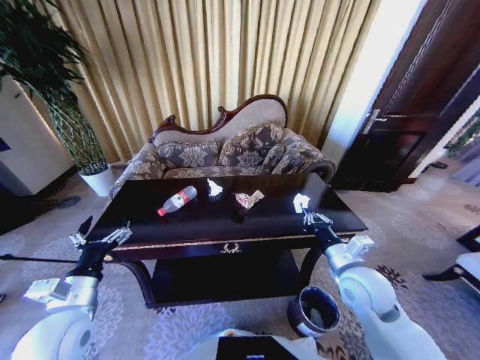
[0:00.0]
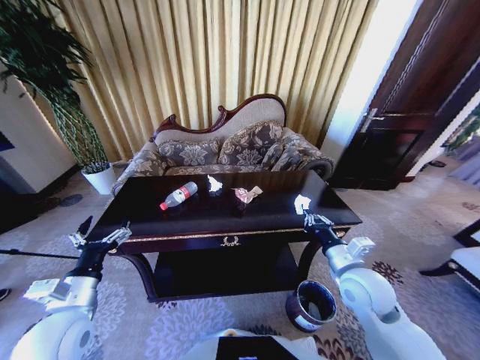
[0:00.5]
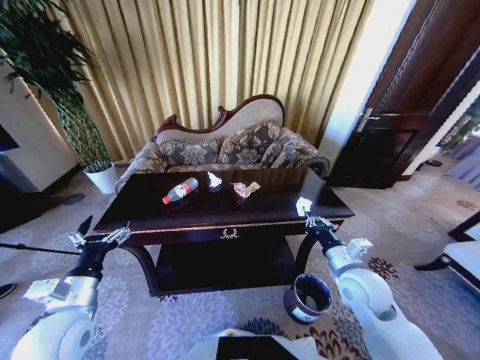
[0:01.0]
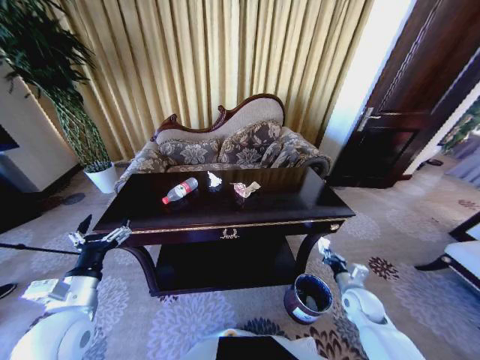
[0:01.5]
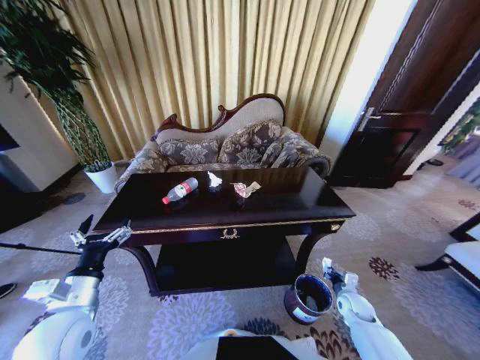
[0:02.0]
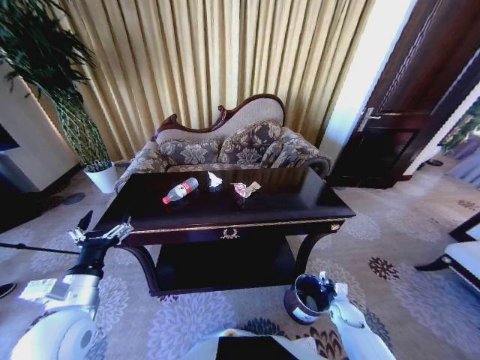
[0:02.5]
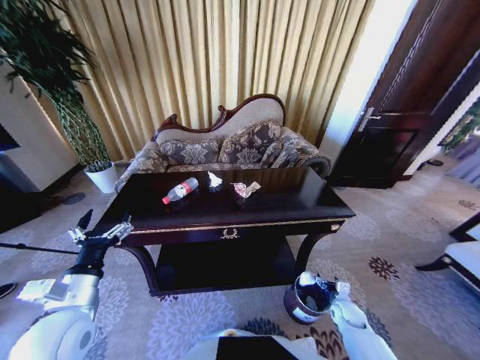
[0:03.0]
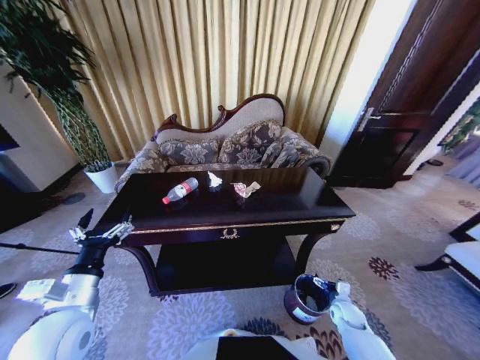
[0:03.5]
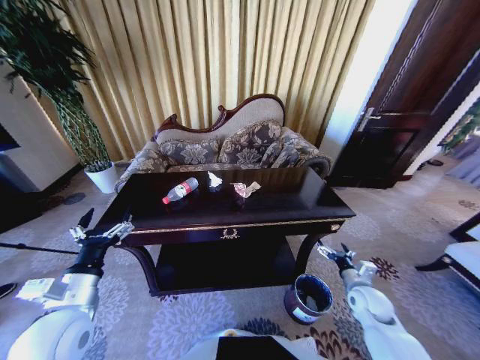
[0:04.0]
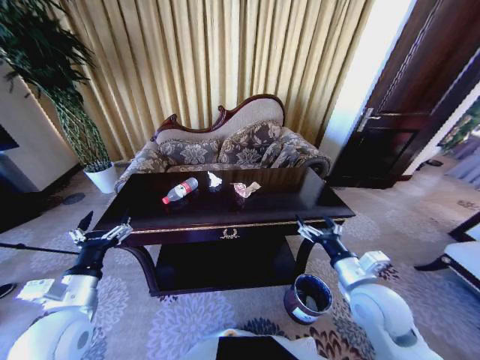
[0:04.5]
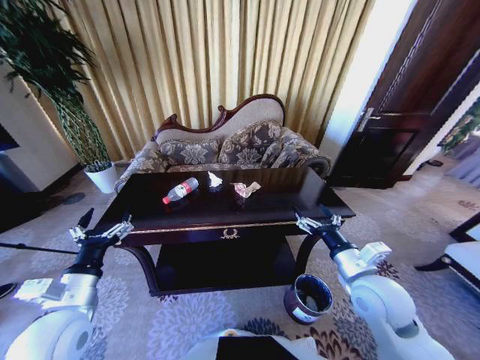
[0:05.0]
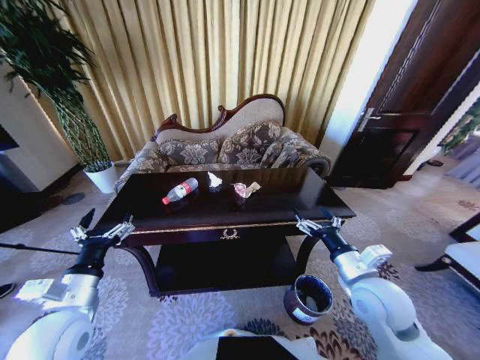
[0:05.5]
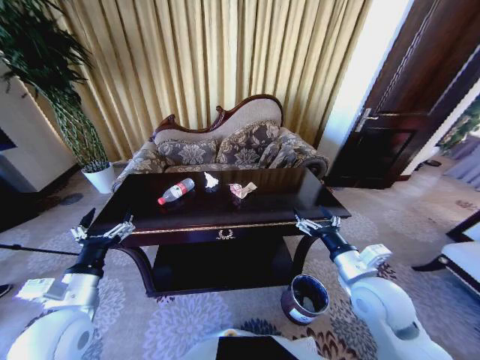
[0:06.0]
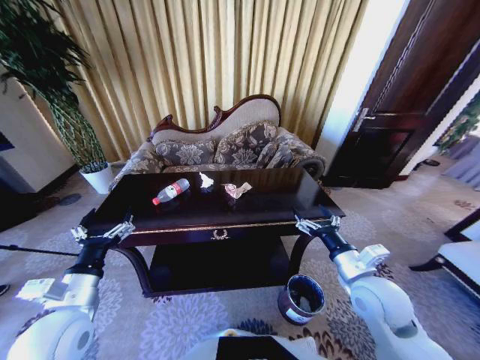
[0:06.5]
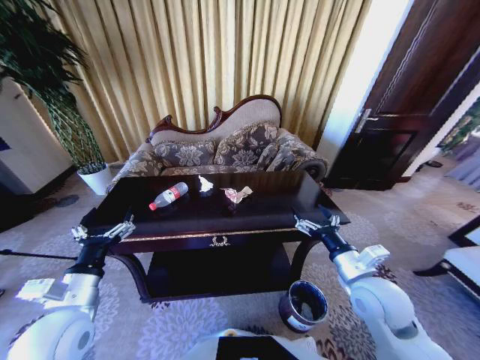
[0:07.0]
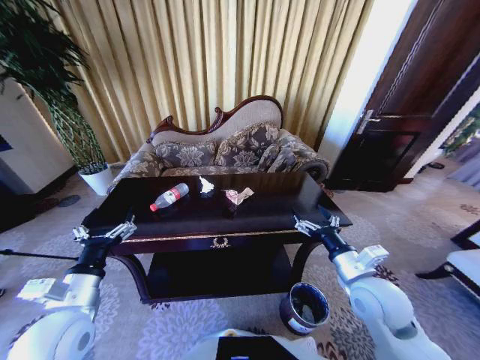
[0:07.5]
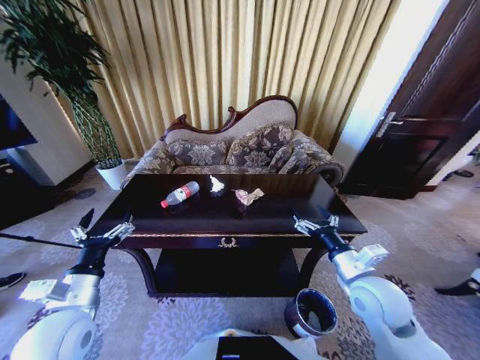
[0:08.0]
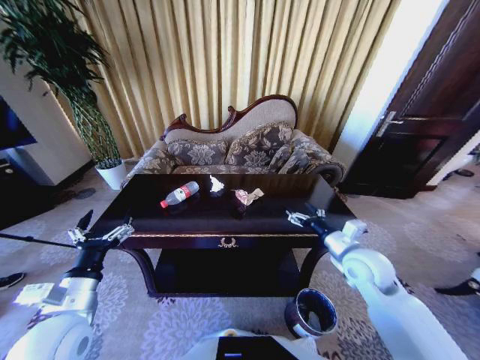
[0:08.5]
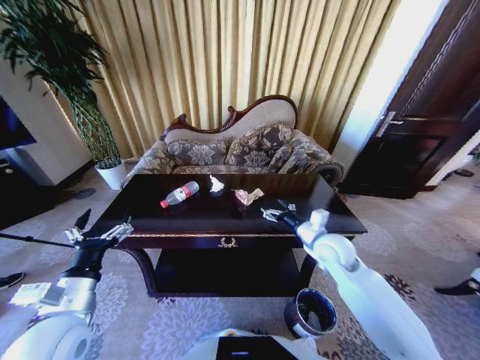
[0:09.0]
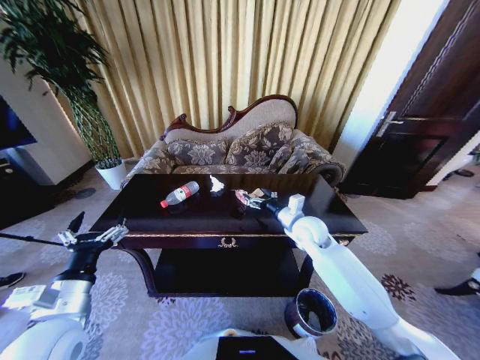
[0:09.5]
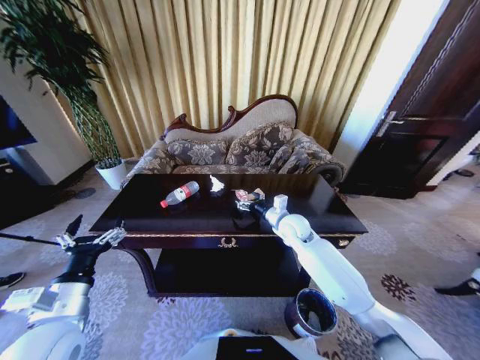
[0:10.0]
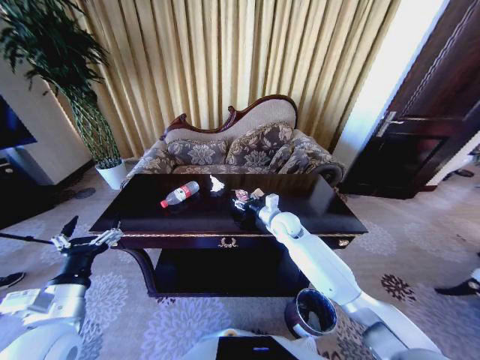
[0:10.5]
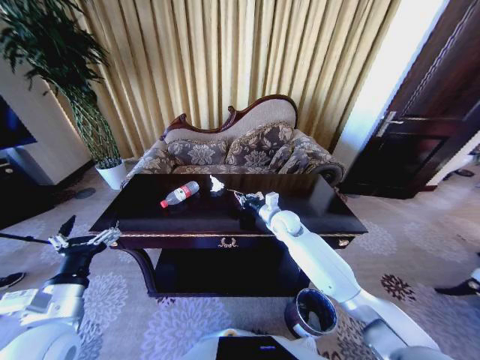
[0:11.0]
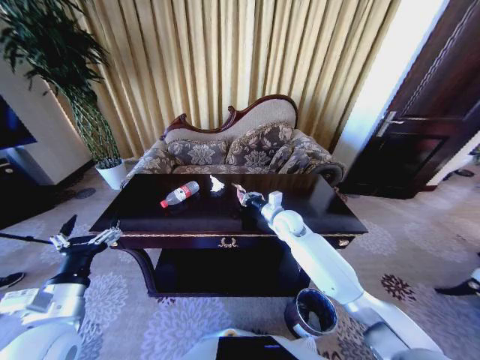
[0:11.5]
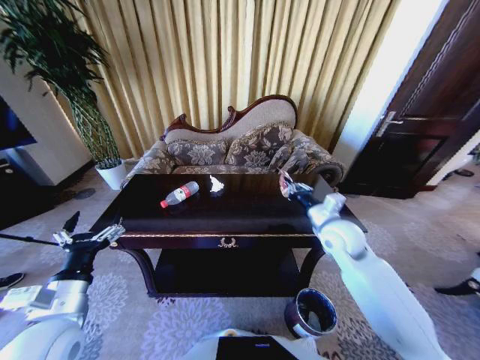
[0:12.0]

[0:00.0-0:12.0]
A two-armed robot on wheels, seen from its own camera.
Task of the whole recording: Move to the front of the table and place the trash on the table into the trash bin.
0.0 to 2.0 s: The right gripper heads downward and to the right, covering approximately 30 cm.
2.0 to 4.0 s: The right gripper goes some 10 cm upward, and opens up.
4.0 to 6.0 s: The right gripper shifts some 20 cm upward and to the left.
8.0 to 10.0 s: The right gripper goes approximately 25 cm forward and to the left.
10.0 to 12.0 s: The right gripper shifts about 15 cm to the right, backward and upward, and closes up.

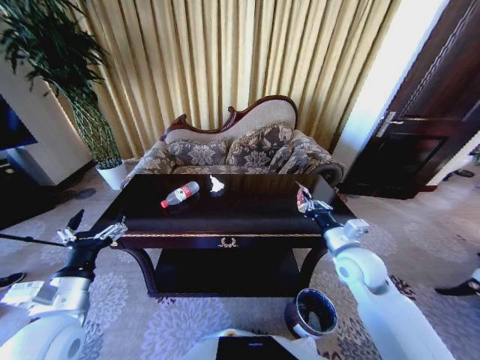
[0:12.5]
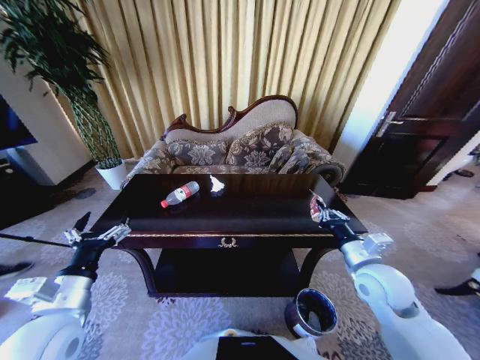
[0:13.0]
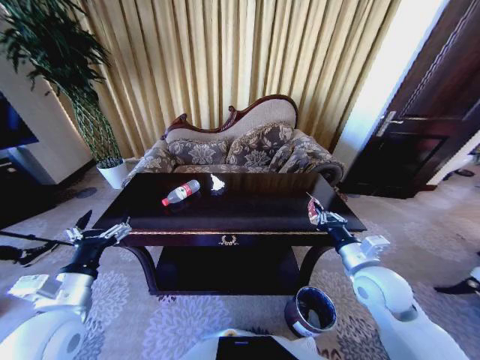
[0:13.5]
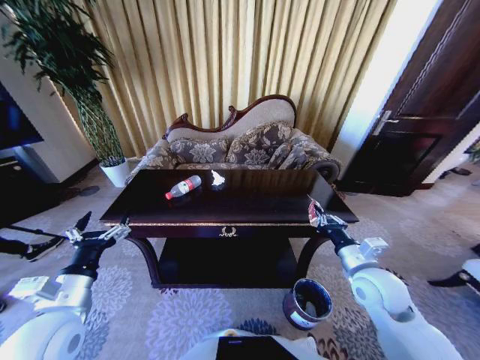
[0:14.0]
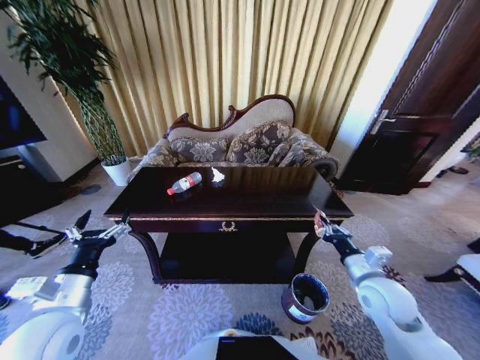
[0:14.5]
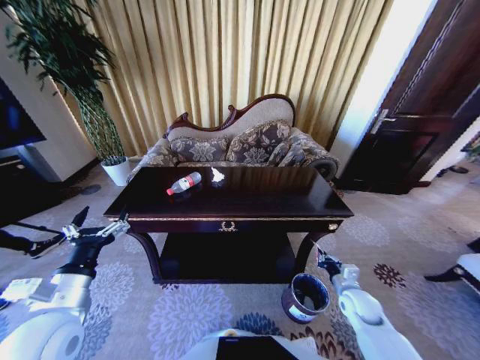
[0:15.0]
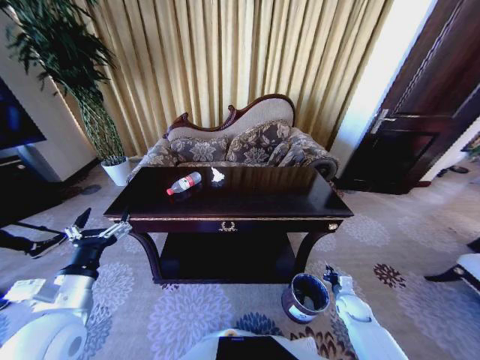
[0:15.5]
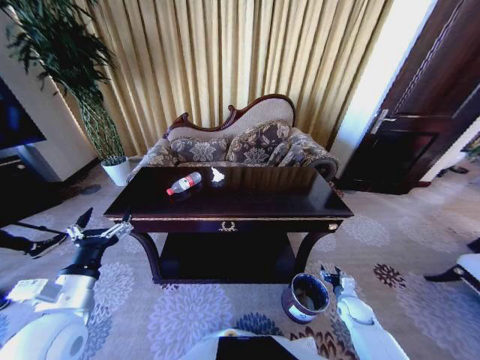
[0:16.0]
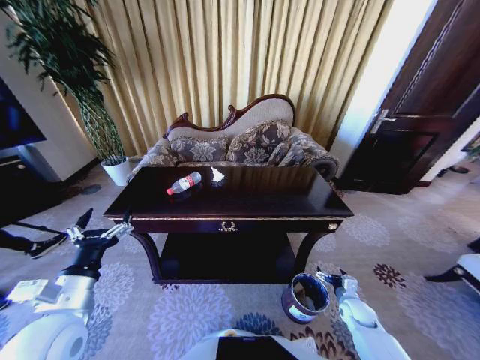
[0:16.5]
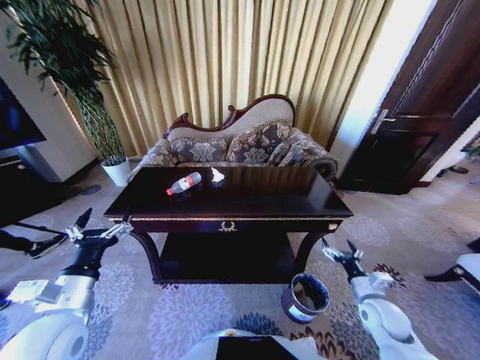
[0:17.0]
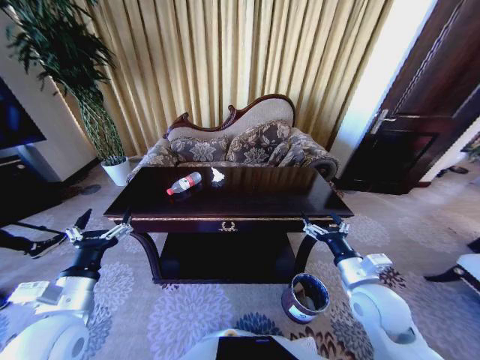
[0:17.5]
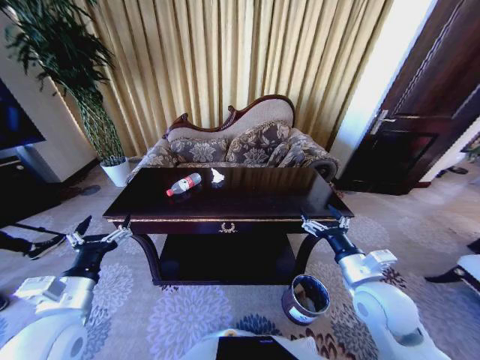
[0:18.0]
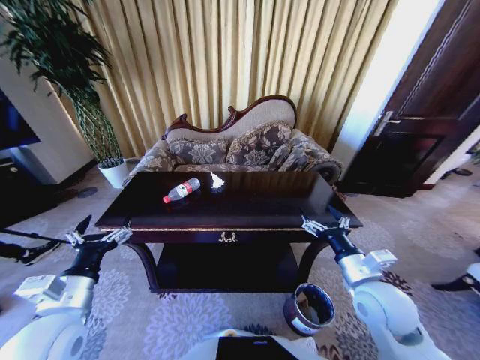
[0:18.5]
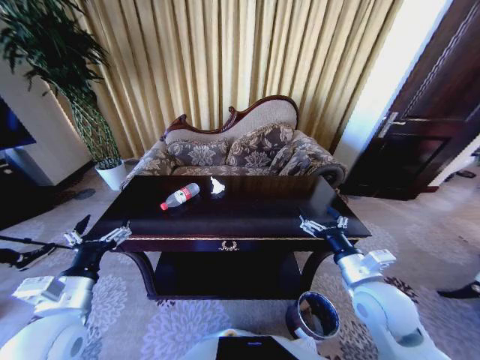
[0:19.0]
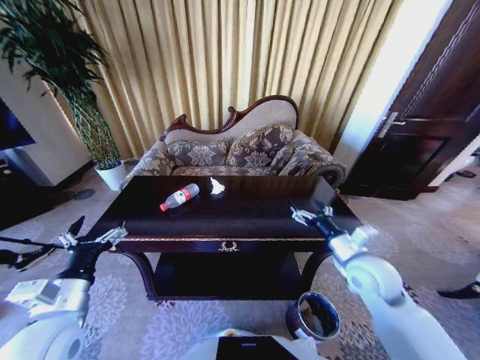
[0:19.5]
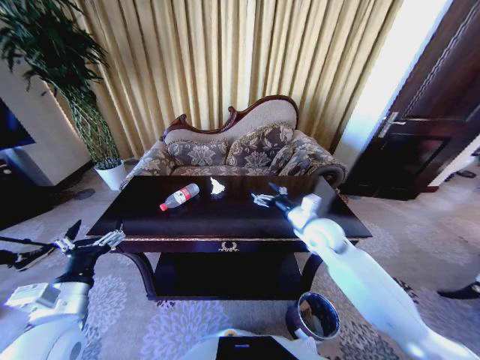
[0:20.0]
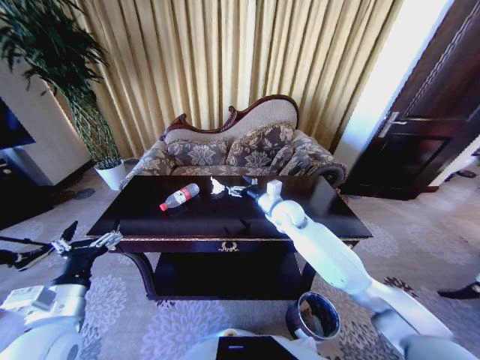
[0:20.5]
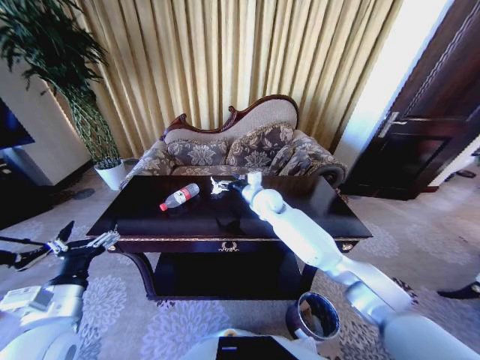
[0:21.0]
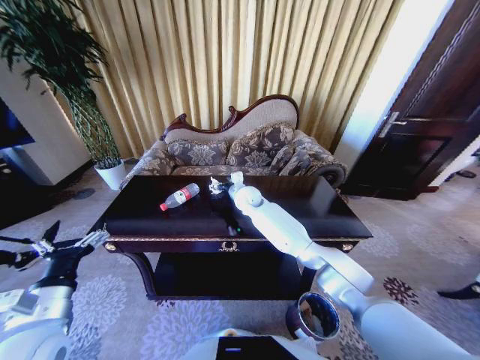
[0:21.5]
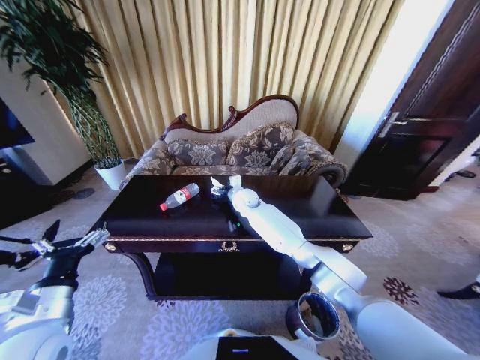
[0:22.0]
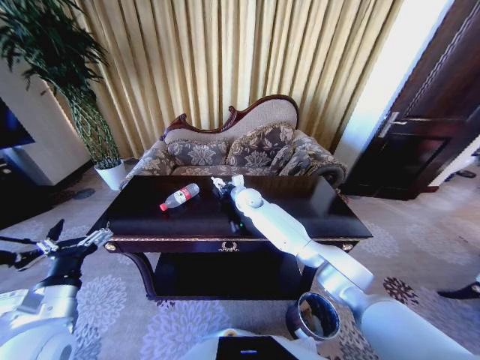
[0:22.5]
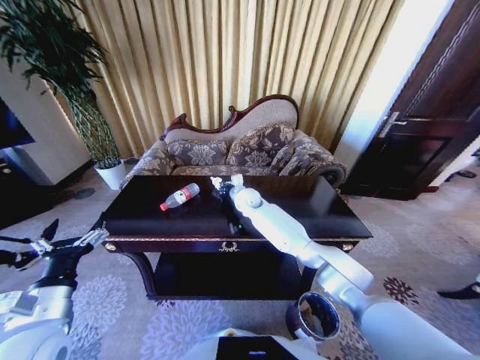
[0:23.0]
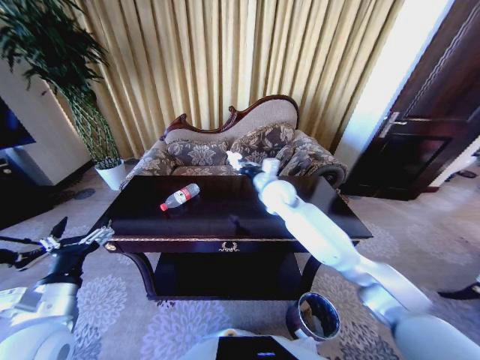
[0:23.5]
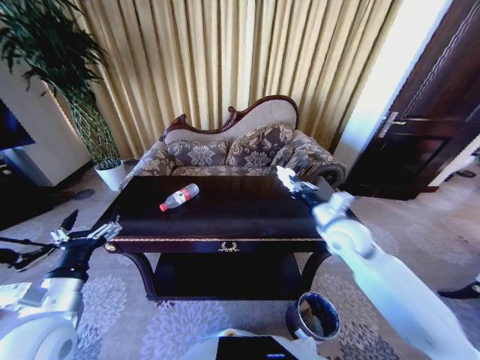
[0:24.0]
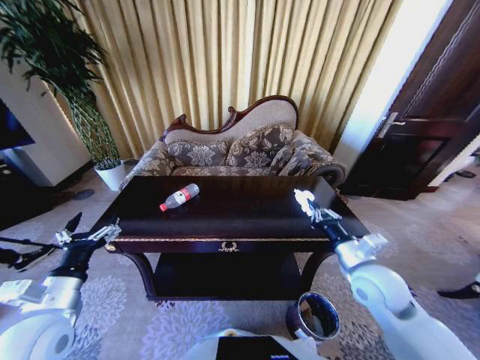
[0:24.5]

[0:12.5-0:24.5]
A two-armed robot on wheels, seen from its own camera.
Task of the whole recording: Move to the front of the table and place the trash on the table into the trash bin.
12.5 to 14.5 s: The right gripper travels backward by some 5 cm.
14.5 to 16.5 s: The right gripper moves downward, about 25 cm, and opens up.
16.5 to 18.5 s: The right gripper goes roughly 30 cm upward and to the left.
18.5 to 20.5 s: The right gripper goes about 30 cm forward and to the left.
20.5 to 22.5 s: The right gripper shifts roughly 15 cm forward and to the left, and closes up.
22.5 to 24.5 s: The right gripper travels backward and to the right by roughly 40 cm, and closes up.

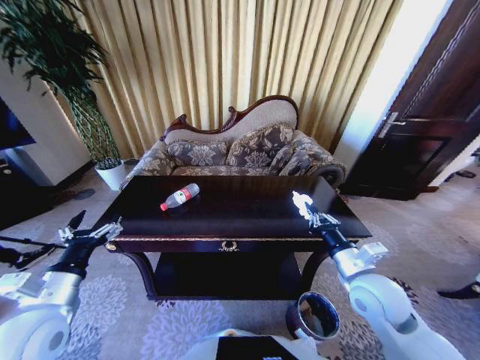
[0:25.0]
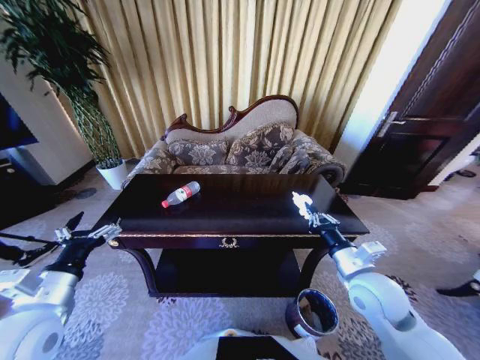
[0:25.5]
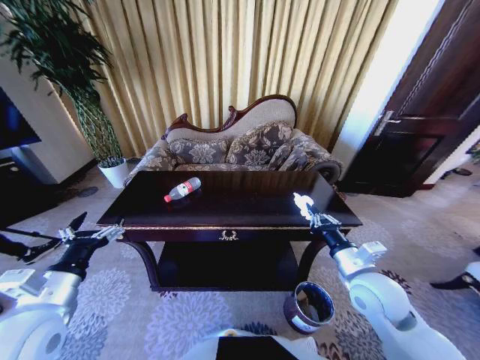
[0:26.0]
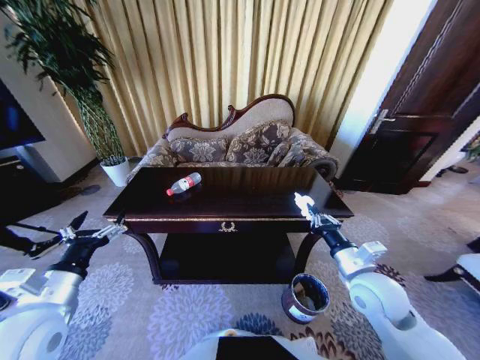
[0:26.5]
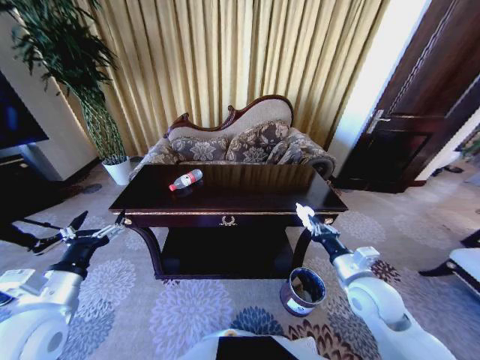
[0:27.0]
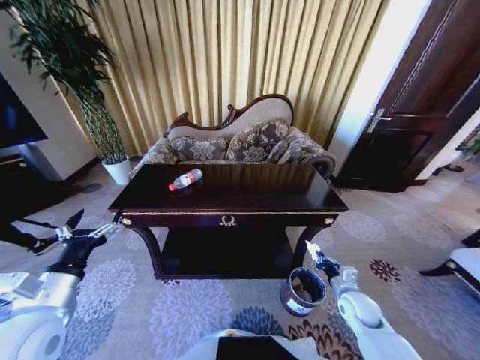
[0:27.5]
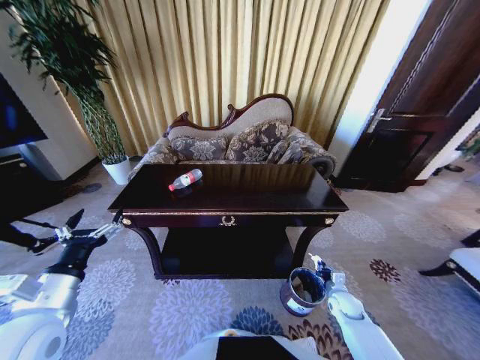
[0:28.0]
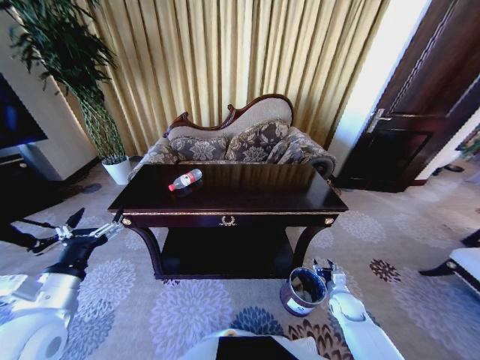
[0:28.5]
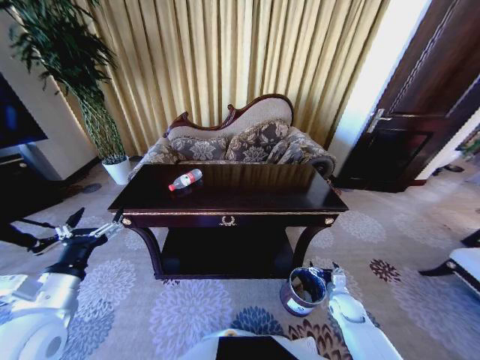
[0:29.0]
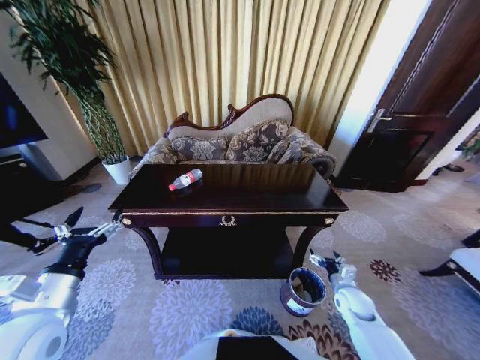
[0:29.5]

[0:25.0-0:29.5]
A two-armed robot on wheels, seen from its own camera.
Task of the whole recording: Move to the front of the table and place the trash on the table into the trash bin.
27.0 to 29.5 s: The right gripper shifts some 20 cm downward, and opens up.
